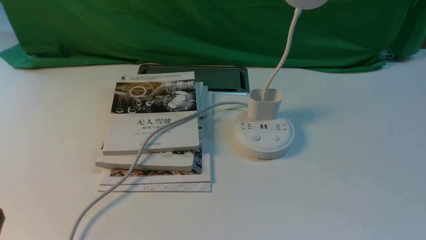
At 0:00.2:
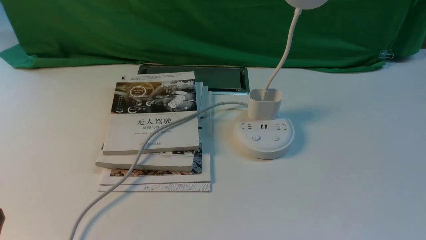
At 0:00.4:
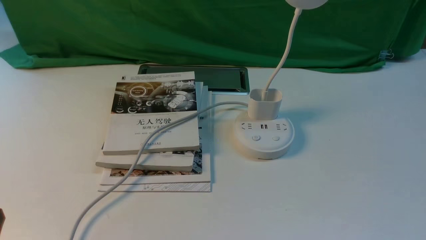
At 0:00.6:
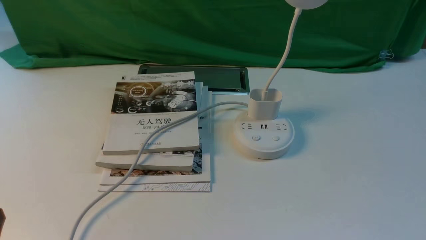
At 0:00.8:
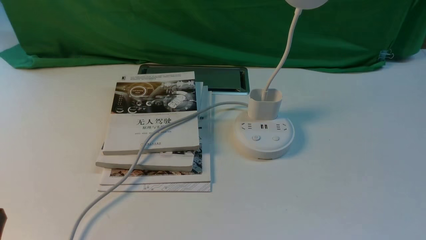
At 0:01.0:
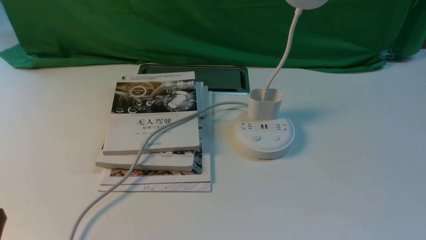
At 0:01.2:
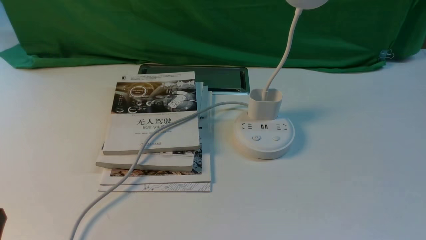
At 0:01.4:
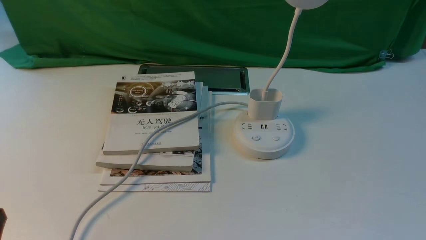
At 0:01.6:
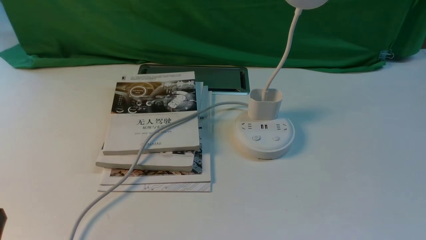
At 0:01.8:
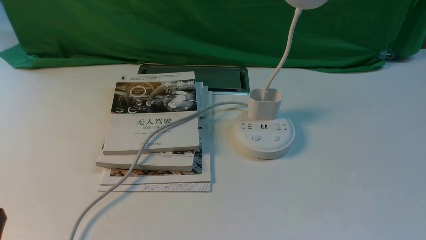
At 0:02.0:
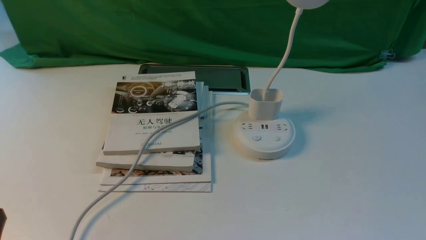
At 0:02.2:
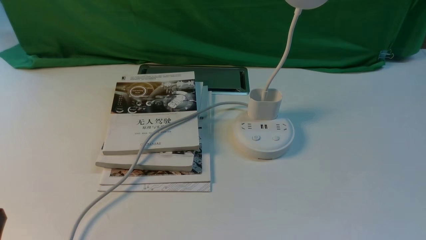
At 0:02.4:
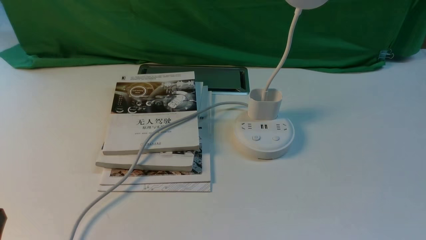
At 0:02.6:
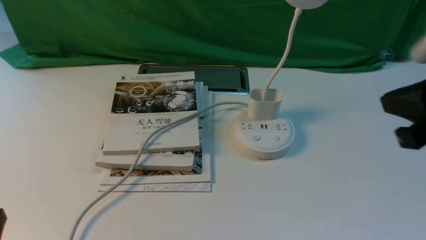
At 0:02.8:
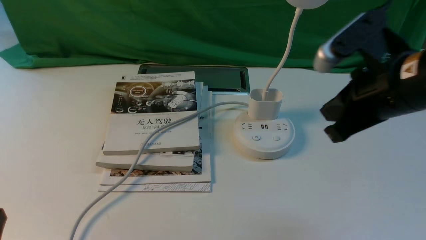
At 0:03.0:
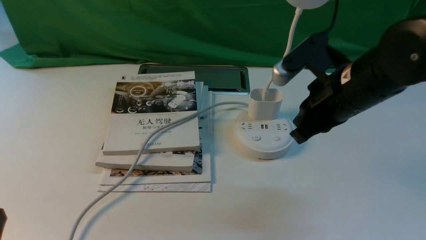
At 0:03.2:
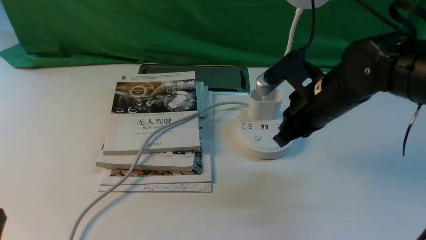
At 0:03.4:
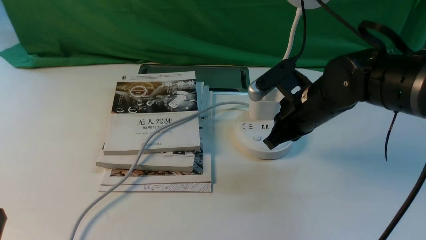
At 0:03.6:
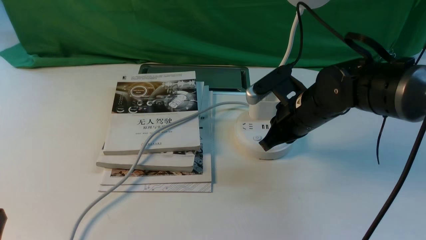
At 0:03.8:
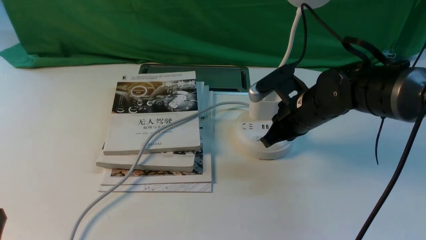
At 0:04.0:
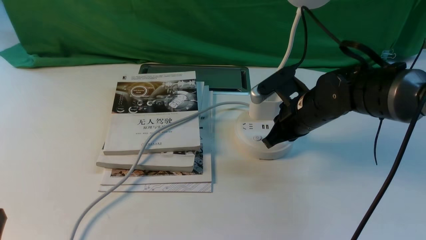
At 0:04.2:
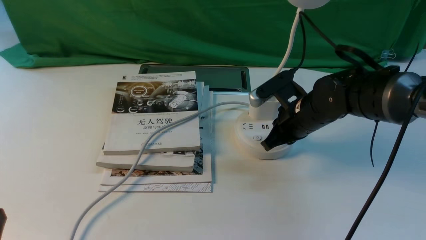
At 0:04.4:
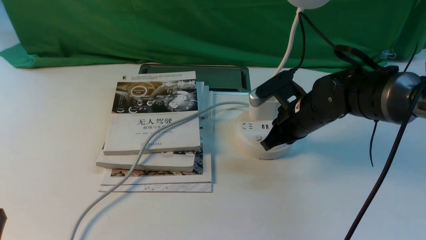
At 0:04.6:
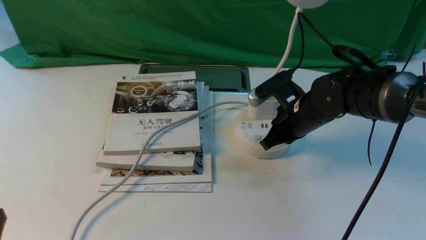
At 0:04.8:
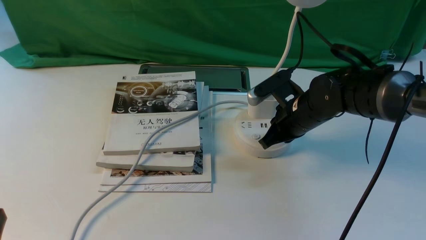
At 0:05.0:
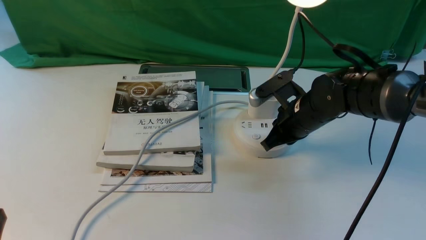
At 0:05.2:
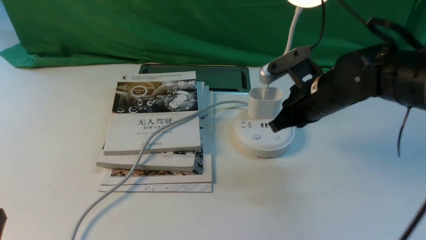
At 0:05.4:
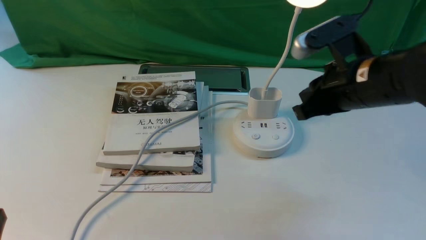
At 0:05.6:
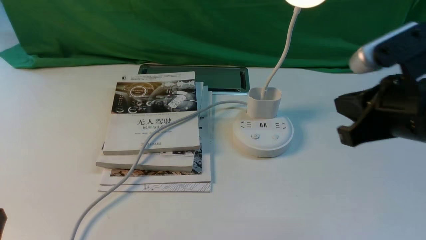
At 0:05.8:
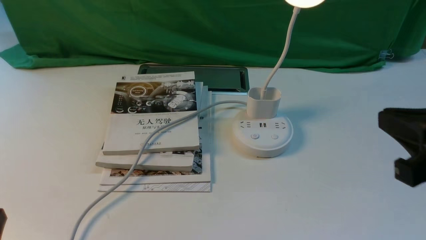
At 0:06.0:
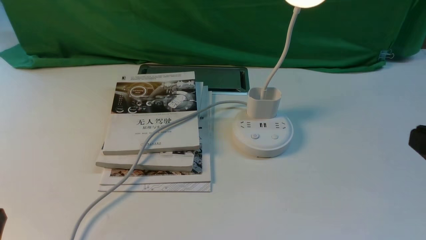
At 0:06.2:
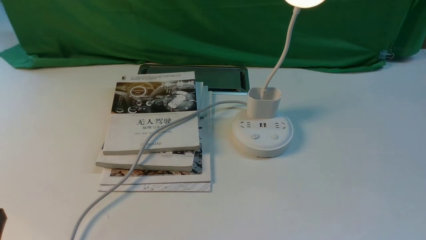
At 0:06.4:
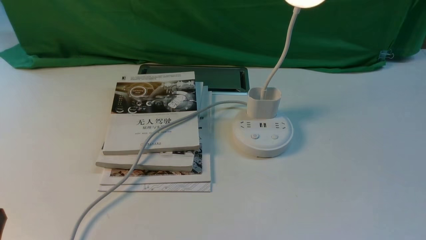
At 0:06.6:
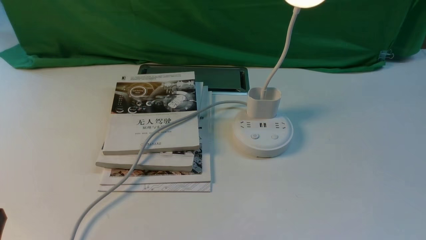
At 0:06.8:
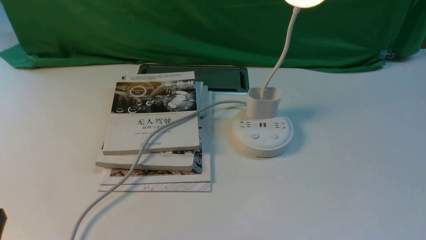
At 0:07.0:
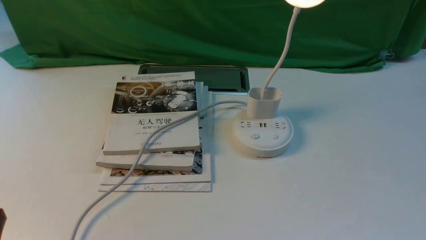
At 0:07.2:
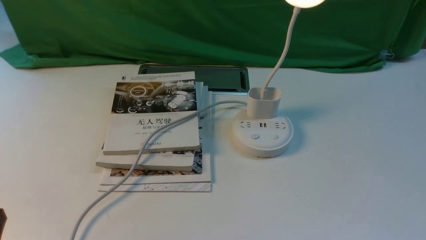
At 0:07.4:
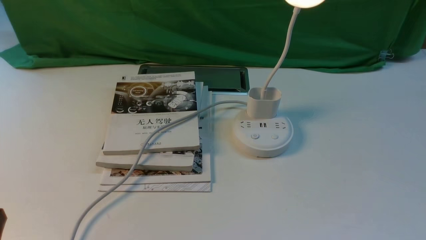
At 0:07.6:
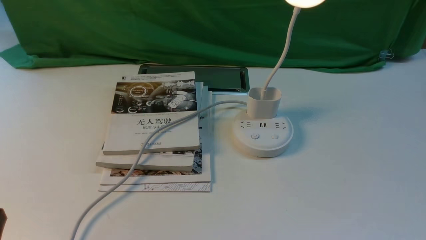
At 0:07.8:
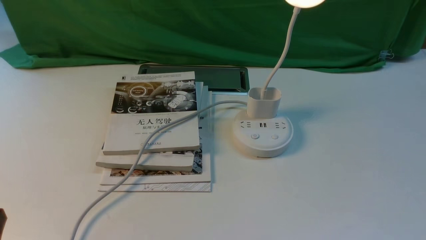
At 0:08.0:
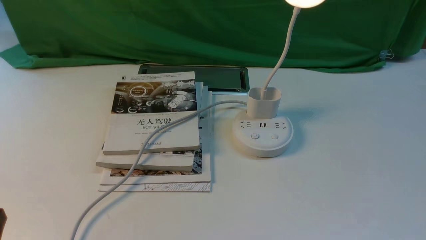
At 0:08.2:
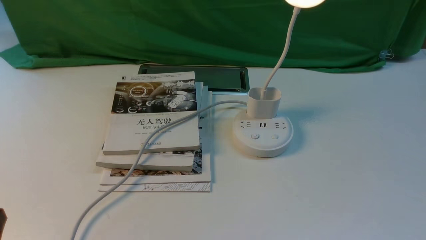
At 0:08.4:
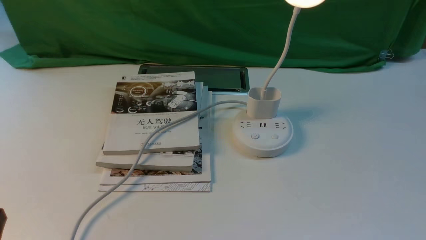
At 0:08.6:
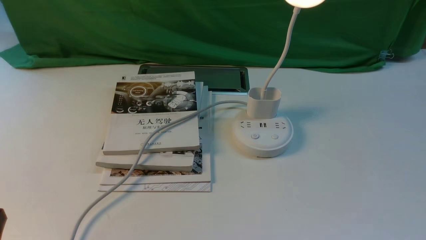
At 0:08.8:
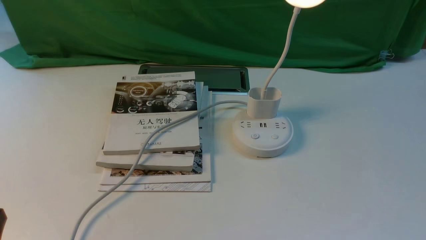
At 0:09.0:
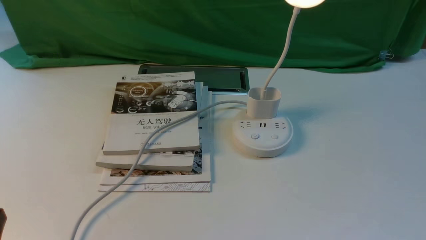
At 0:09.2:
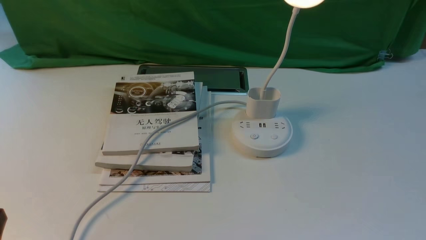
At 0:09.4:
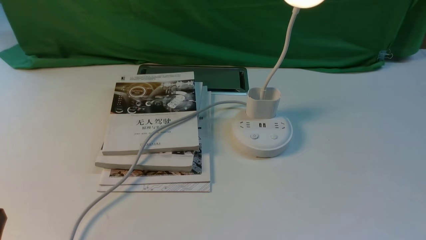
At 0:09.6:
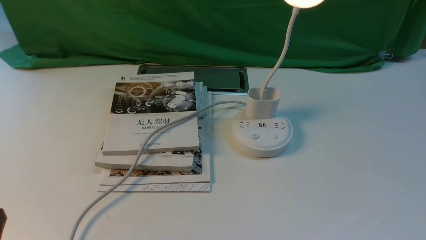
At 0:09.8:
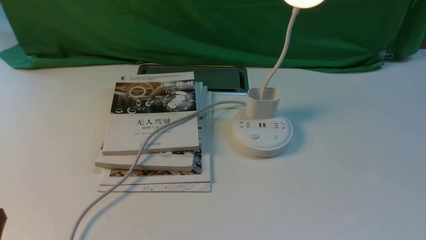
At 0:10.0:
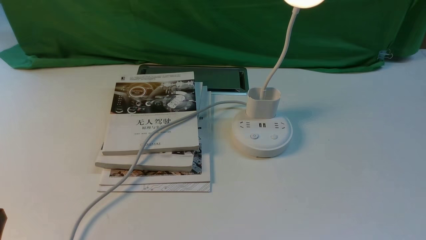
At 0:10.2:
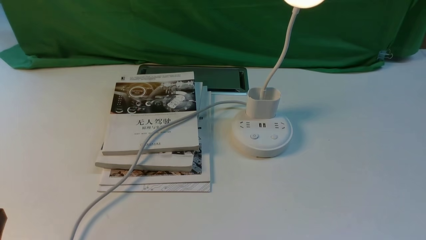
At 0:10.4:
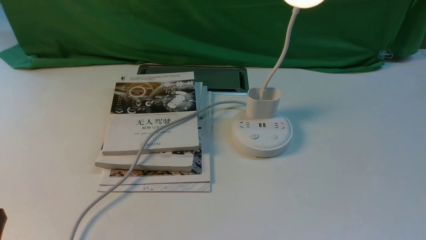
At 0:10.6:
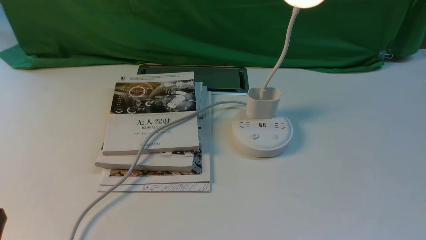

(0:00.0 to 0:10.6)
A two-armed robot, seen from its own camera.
Step, 0:00.0 - 0:05.2: use the right arm to press the button switch on the lamp holder.
0:01.6 - 0:03.0: The right gripper travels forward, to the left and upward by about 30 cm, and closes up.
0:03.0 - 0:04.6: The right gripper travels downward and forward by about 15 cm.
0:04.6 - 0:06.0: The right gripper goes about 35 cm backward, upward and to the right.
0:07.6 - 0:10.6: The two grippers keep their place.

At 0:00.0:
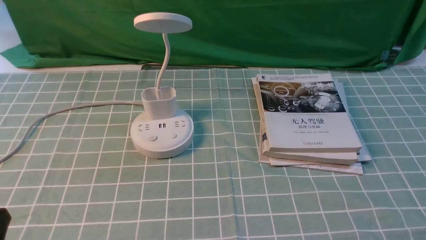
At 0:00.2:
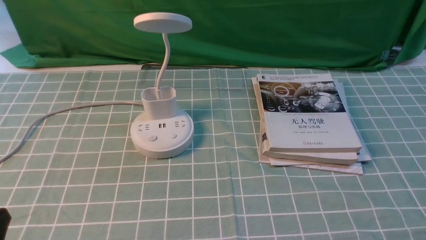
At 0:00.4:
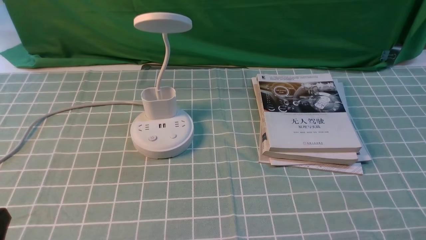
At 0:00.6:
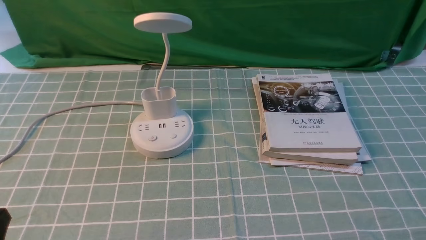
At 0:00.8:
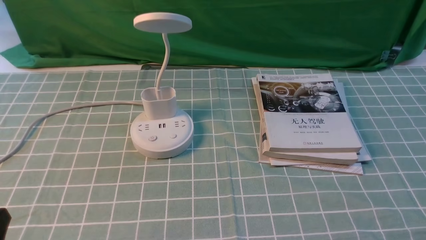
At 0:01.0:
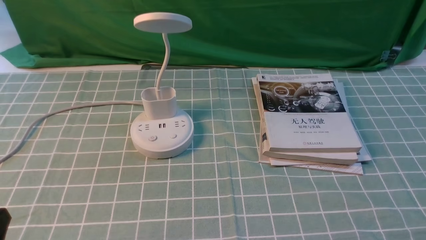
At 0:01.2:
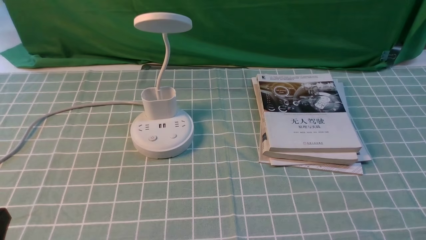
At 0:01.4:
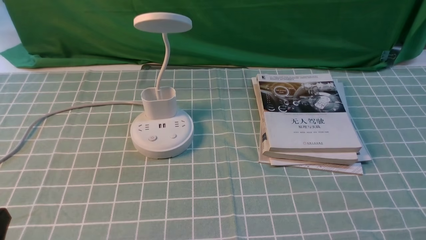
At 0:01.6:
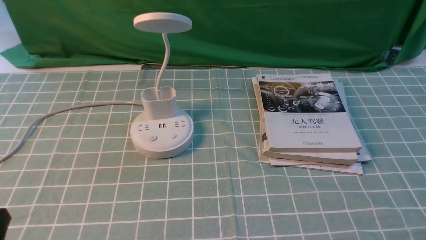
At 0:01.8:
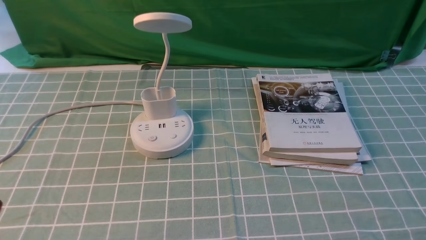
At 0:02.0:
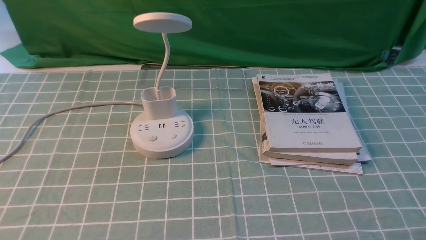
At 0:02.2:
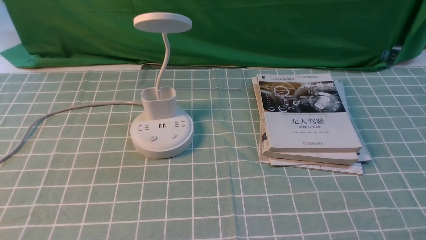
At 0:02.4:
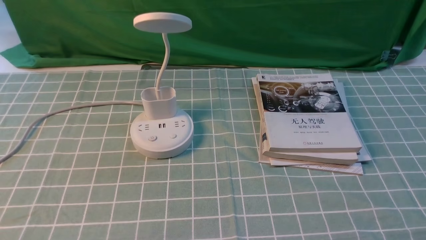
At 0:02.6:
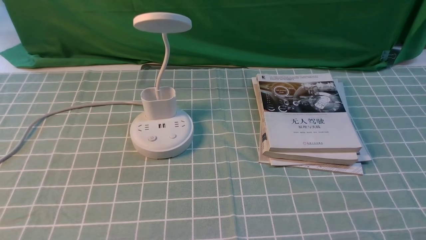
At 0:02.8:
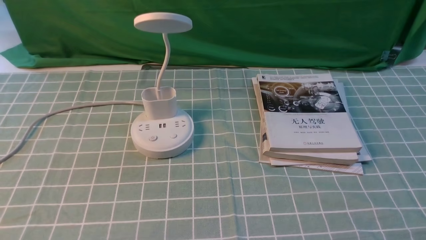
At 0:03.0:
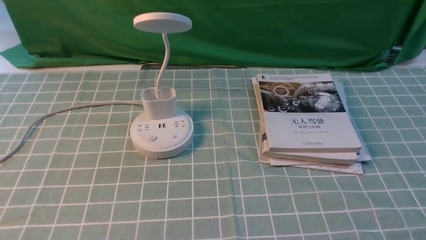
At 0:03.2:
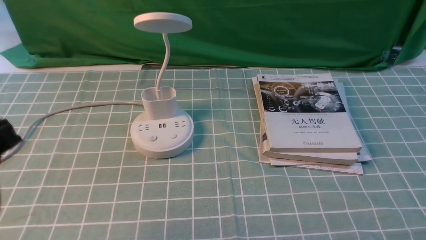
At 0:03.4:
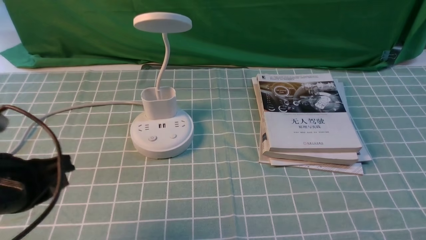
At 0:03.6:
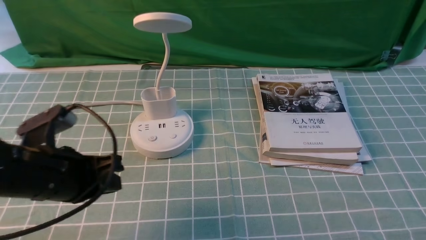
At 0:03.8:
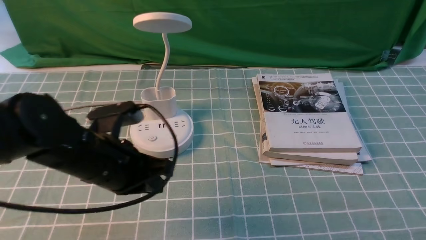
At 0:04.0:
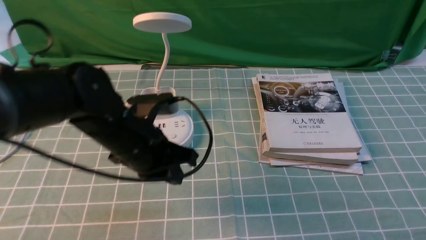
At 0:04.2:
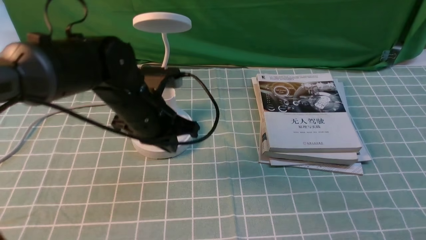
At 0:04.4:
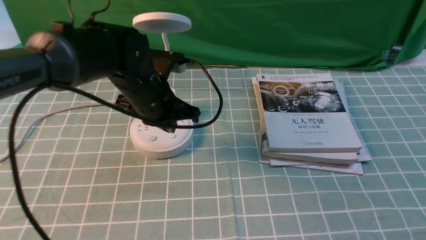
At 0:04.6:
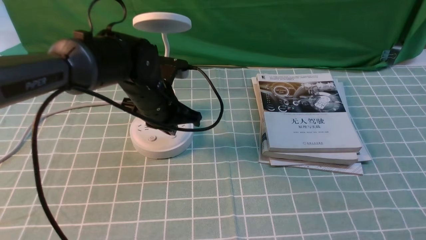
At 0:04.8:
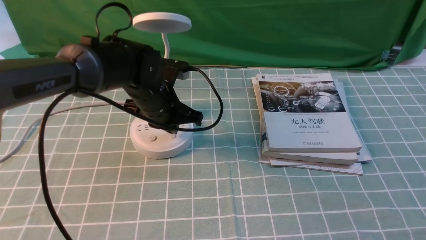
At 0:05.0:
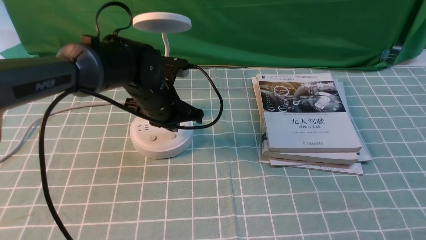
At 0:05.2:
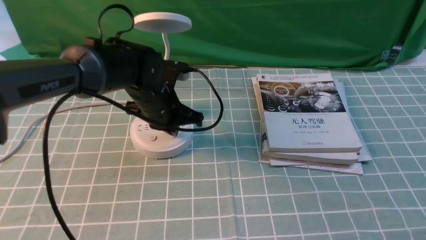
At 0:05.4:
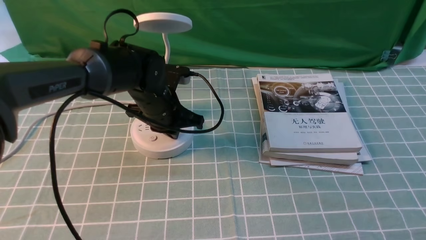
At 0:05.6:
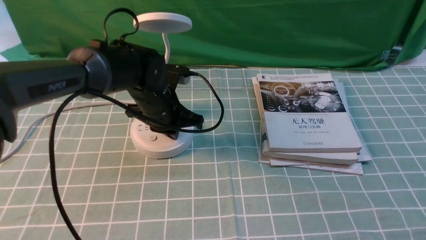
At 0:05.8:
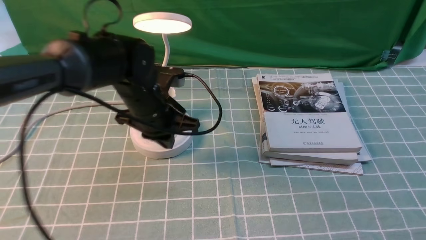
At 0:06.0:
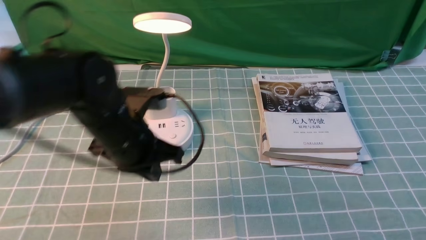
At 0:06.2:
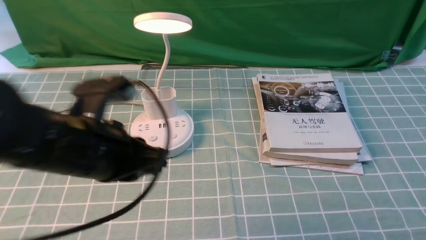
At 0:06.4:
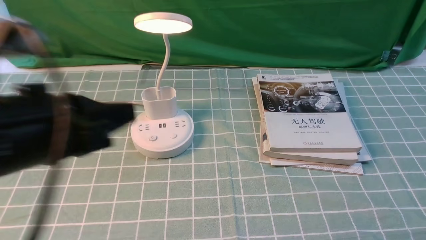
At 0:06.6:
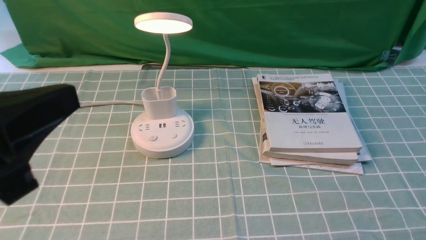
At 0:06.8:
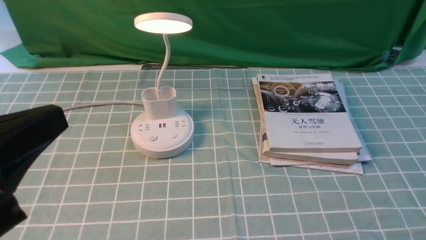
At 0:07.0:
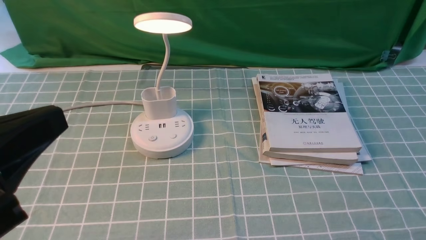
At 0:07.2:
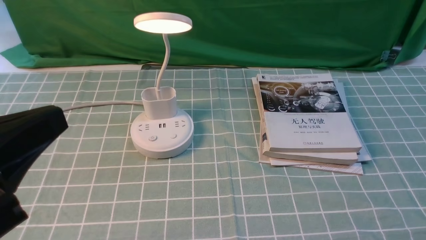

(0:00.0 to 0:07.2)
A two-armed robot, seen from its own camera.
Step, 0:00.0 - 0:05.8: use the left arm to press the button switch on the lamp holder.
0:00.0 - 0:01.4: Both grippers stay about where they are.
0:02.8 - 0:04.4: The left gripper shifts approximately 35 cm forward and to the right, and opens.
0:04.4 - 0:05.8: The grippers stay close to where they were, moving slightly.
0:05.8 - 0:07.2: The left gripper goes approximately 30 cm backward, upward and to the left.
